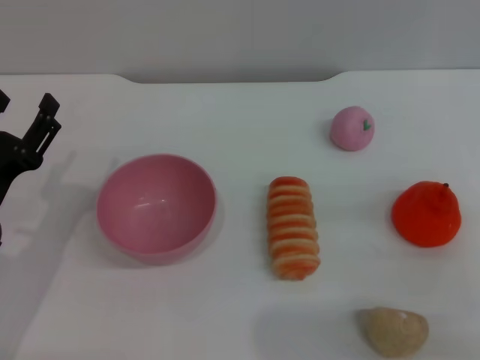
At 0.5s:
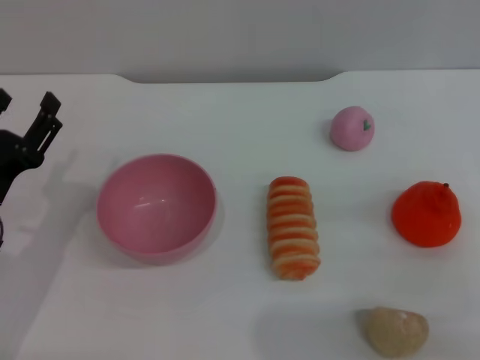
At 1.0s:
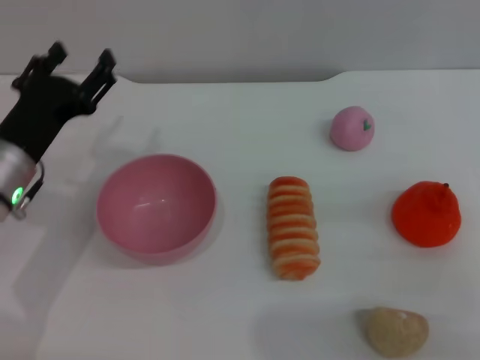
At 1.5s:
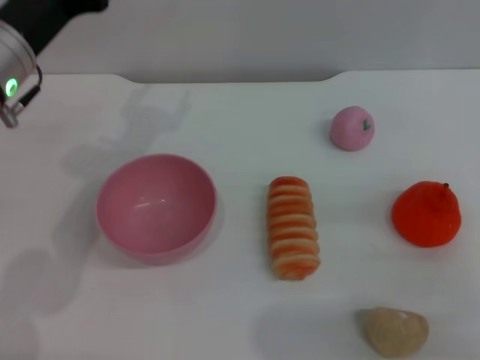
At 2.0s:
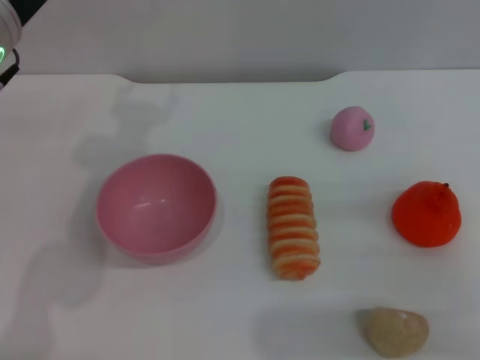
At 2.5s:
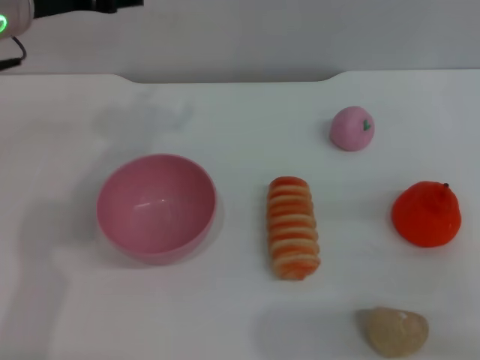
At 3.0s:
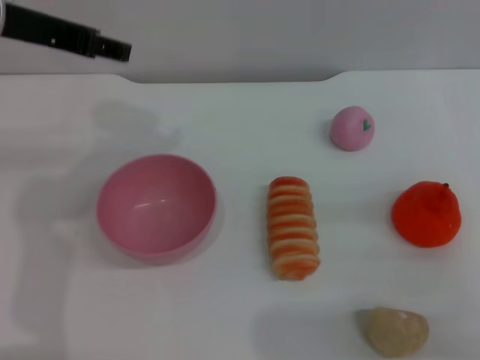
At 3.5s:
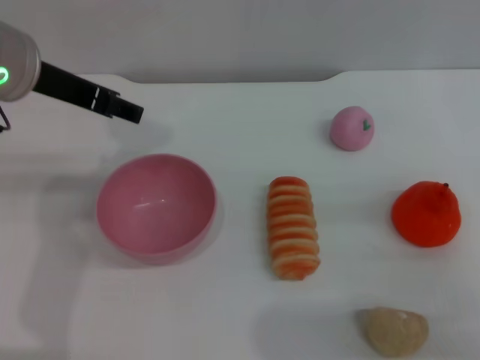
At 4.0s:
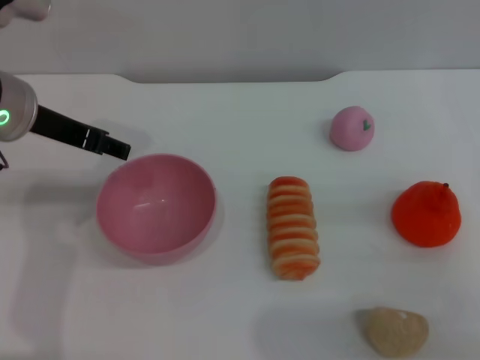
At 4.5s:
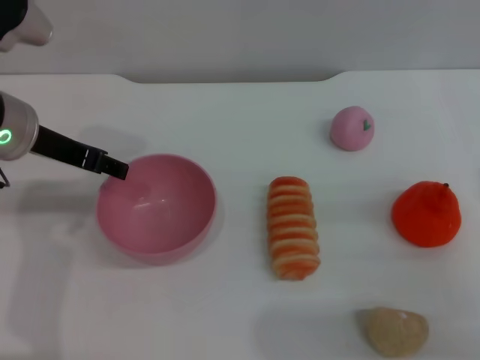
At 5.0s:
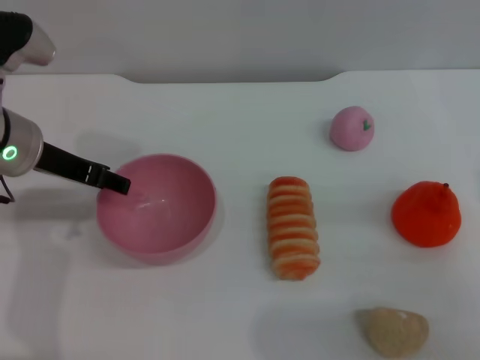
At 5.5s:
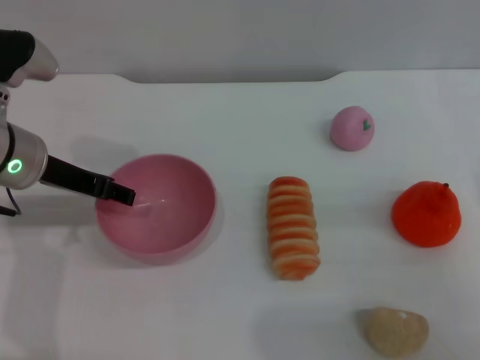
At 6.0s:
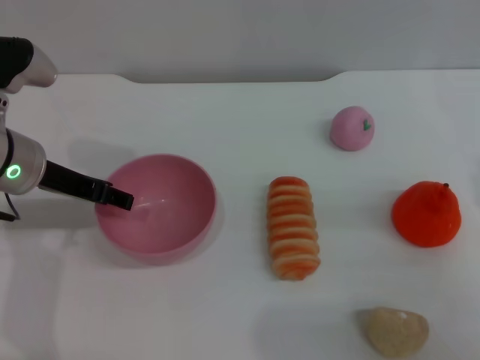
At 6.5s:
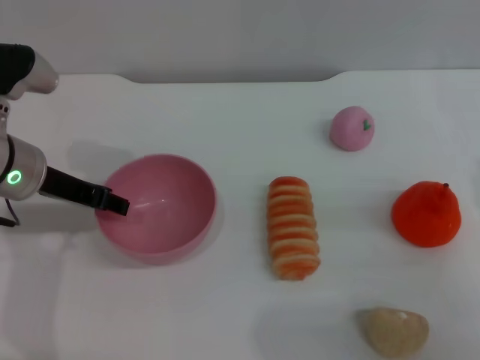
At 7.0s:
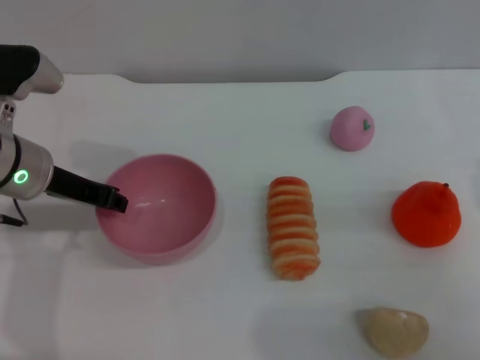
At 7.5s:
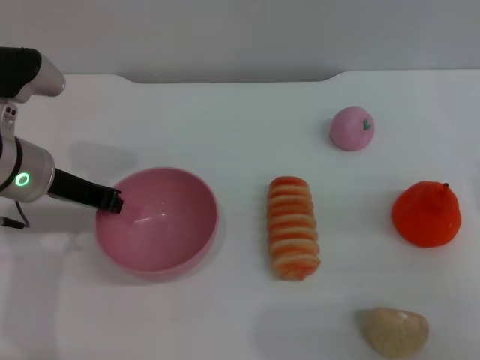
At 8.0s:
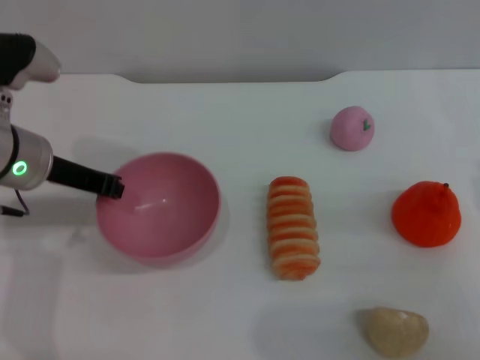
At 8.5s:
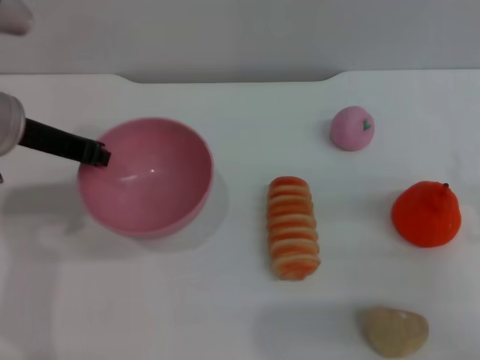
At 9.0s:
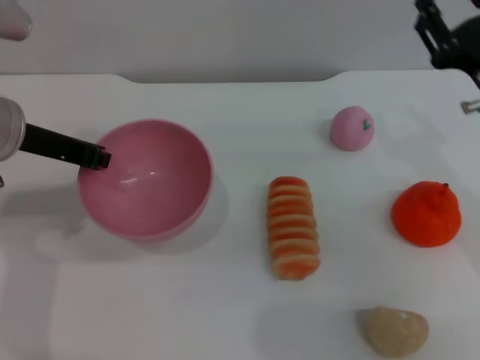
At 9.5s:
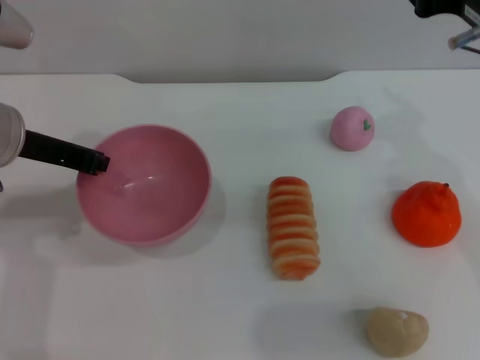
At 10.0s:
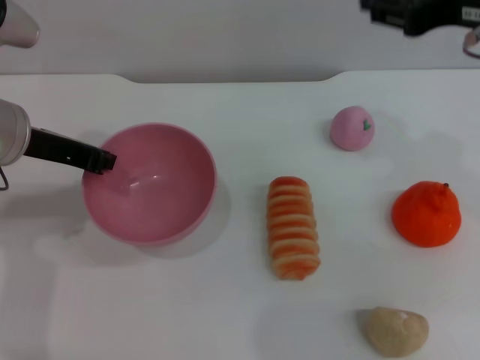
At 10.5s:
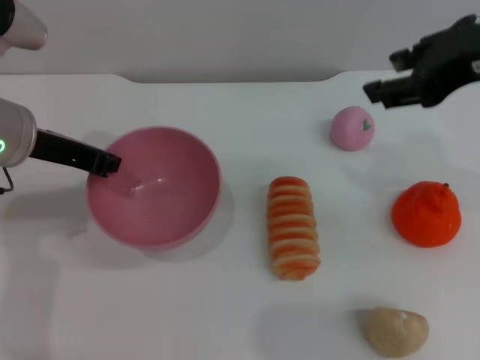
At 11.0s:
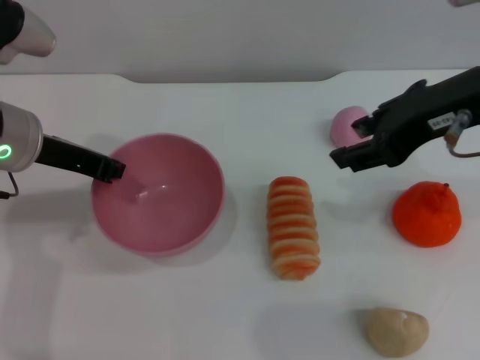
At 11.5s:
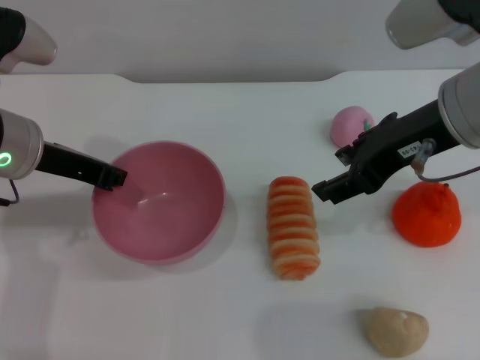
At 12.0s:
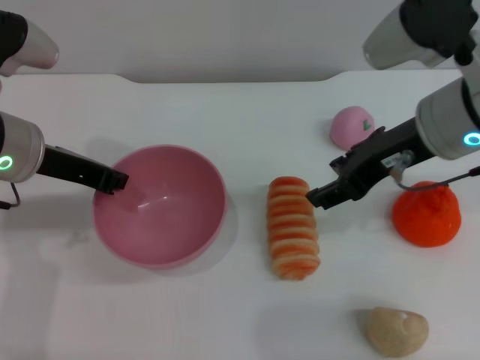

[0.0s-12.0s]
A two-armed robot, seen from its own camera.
Task of the whole recording: put the bread into the pink bowl and pour it out repeatedly.
Step, 0.0s to 8.5s: Pick up the bowl with the left gripper.
0.0s to 2.0s: The left gripper travels upward, forward and to the right by some 20 cm.
4.0s to 6.0s: The left gripper moves downward, roughly 5 cm.
6.0s to 8.0s: The left gripper closes.
8.0s to 10.0s: The right gripper moves upward, forward and to the left, about 25 cm.
10.0s to 12.0s: The right gripper is displaced downward by approximately 5 cm.

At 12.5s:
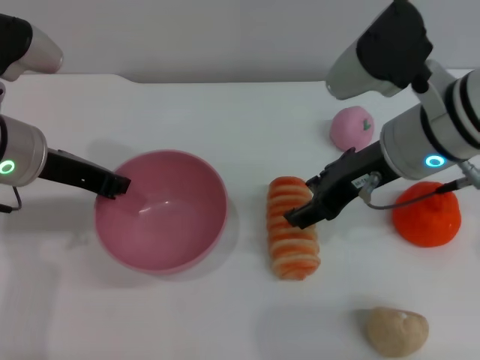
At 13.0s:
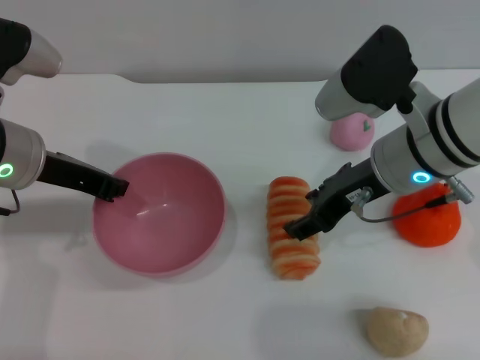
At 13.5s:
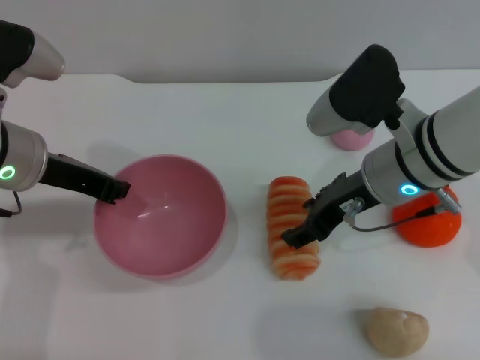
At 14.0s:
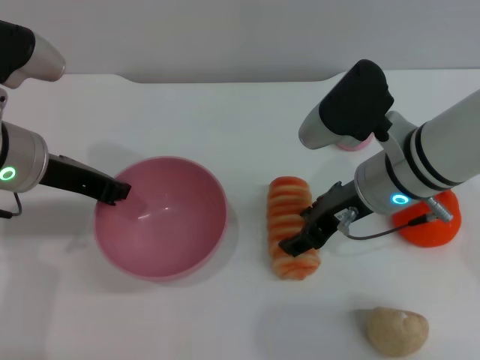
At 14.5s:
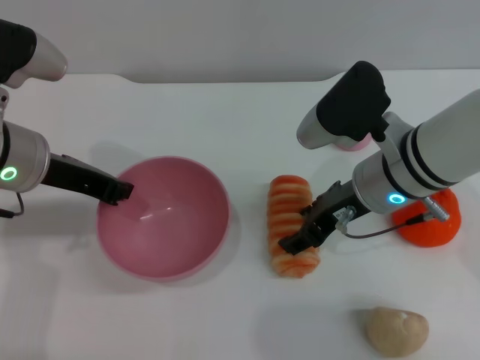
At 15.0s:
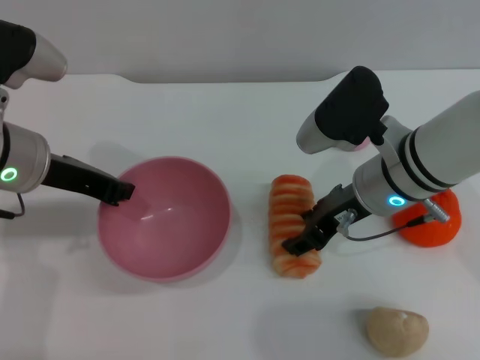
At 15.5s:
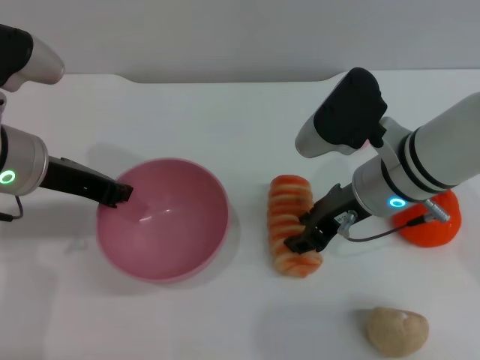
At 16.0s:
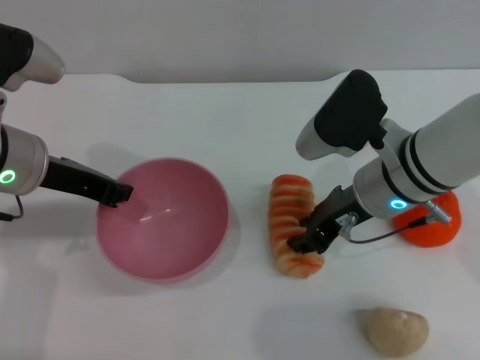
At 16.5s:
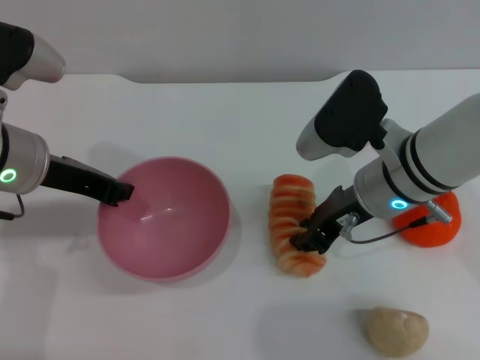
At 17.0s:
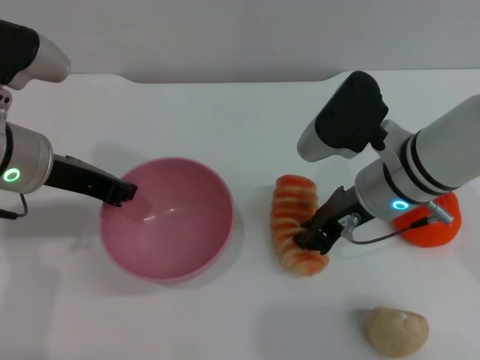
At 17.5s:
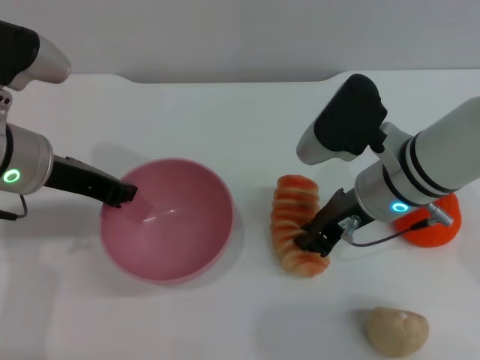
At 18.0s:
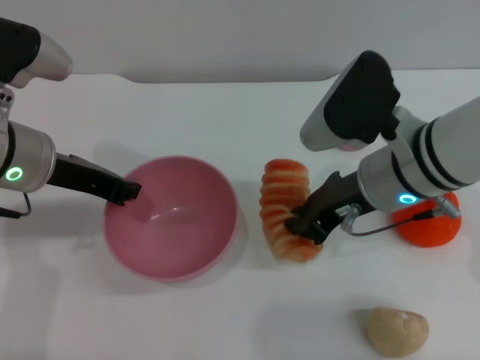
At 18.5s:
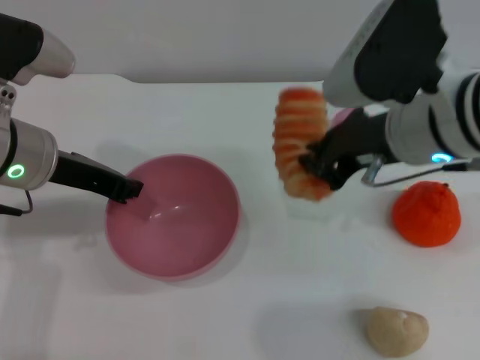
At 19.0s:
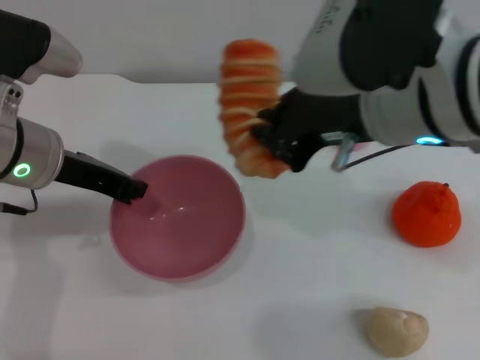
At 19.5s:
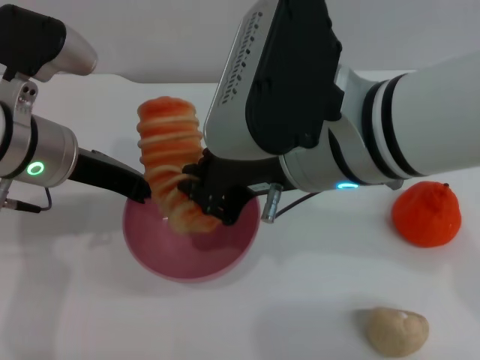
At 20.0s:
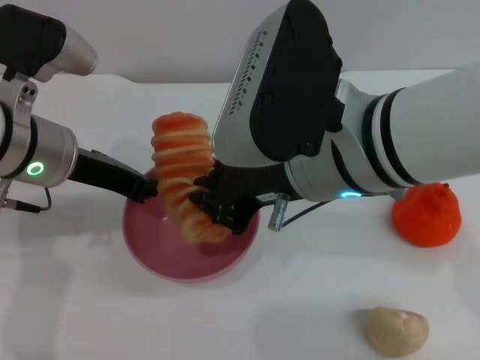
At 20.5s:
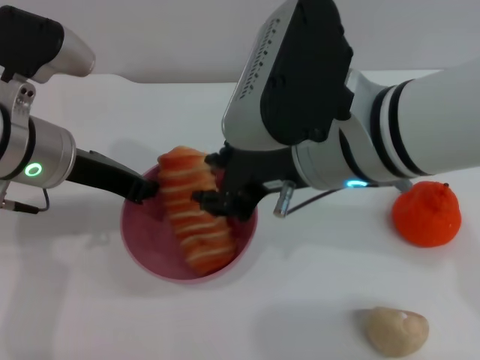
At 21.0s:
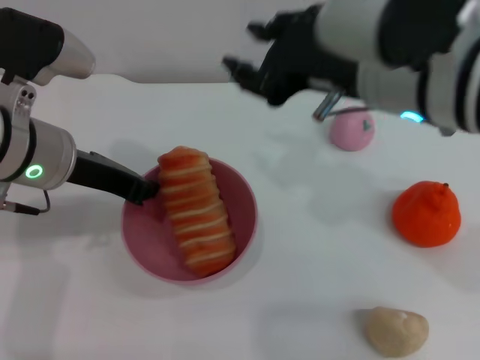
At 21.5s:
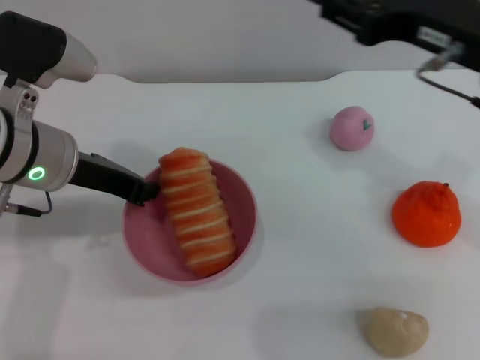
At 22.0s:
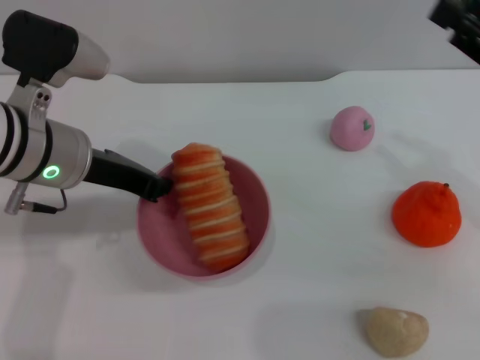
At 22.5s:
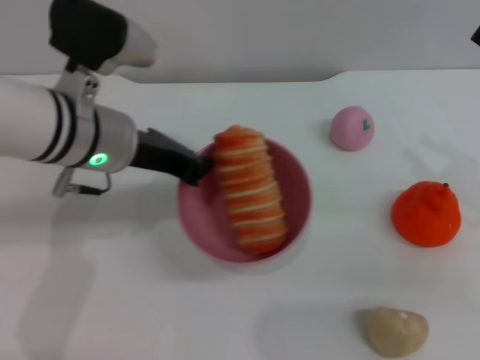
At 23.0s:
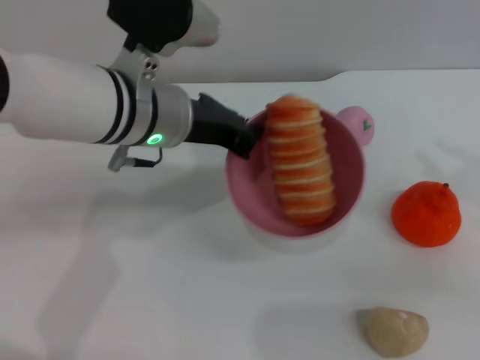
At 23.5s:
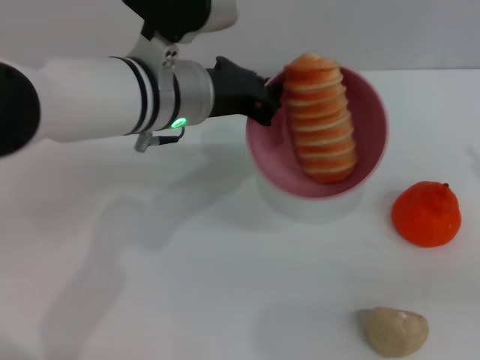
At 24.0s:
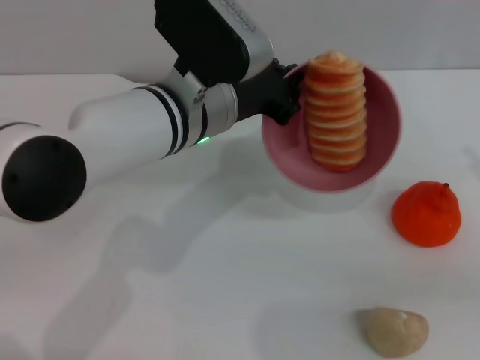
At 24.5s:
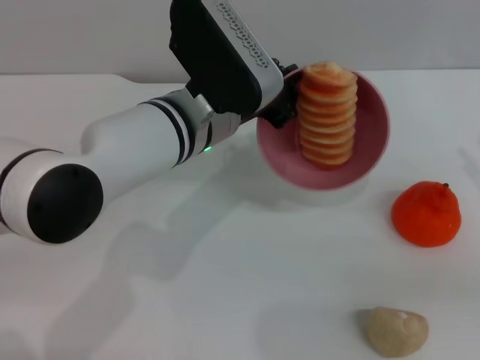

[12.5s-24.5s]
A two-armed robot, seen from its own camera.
Task of the whole recording: put the bread into the pink bowl and pour it out repeatedly.
Step, 12.5s to 18.0s: Pick up the bread with the right gripper.
Step, 18.5s to 20.5s: Place the bread into the bowl.
12.5s to 14.5s: The right gripper heads downward, covering some 5 cm.
14.5s to 16.5s: The right gripper closes its fingers.
16.5s to 18.5s: The right gripper goes roughly 10 cm upward.
18.5s to 20.5s: The right gripper travels to the left by approximately 5 cm, and opens its fingers.
20.5s to 22.5s: The left gripper goes about 5 cm to the right. The right gripper goes some 25 cm to the right.
22.5s to 24.5s: The left gripper heads to the right, covering roughly 10 cm. The right gripper moves approximately 5 cm.

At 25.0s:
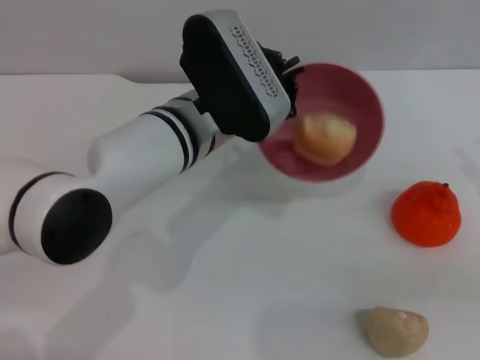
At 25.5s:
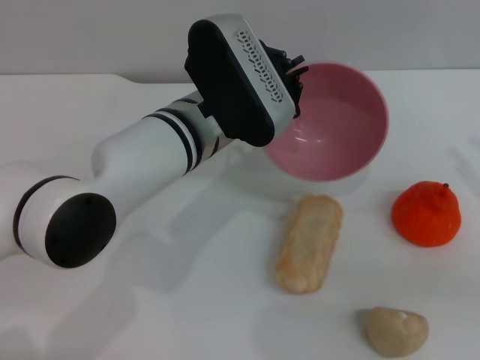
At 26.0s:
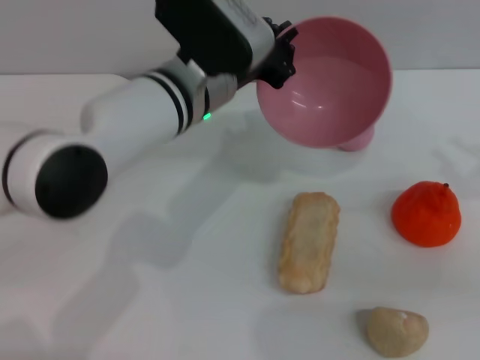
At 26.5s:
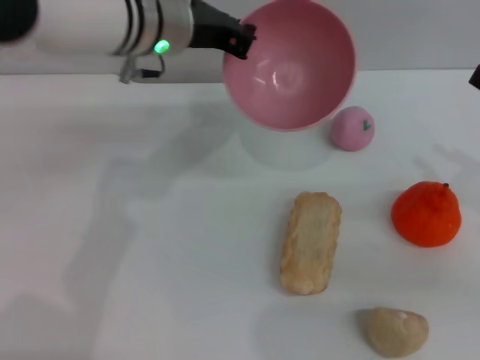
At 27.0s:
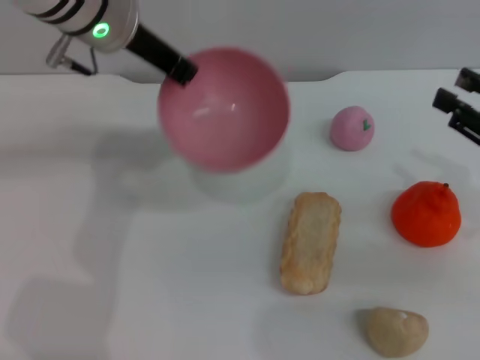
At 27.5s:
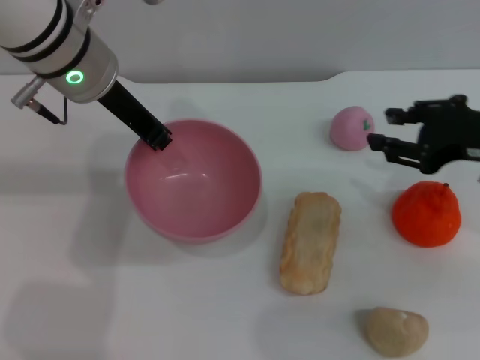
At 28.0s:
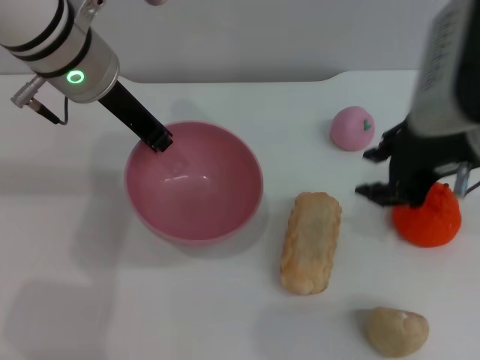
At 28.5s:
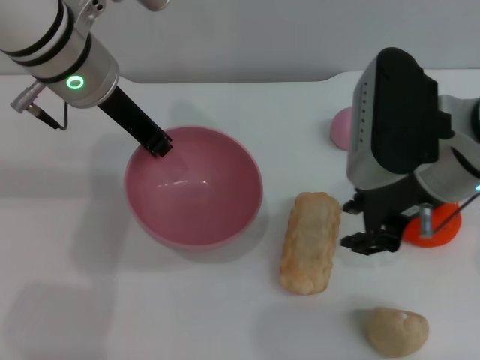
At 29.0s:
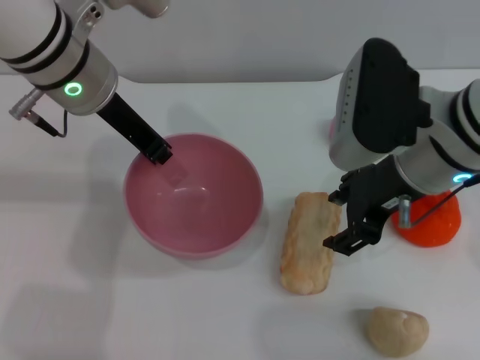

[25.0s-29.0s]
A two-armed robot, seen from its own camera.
Task of the whole recording: put the bread into the pink bowl and pour it out repeatedly.
25.0s to 27.0s: The left gripper shifts roughly 15 cm upward, to the left and forward. Meanwhile the right gripper changes place by some 5 cm.
27.0s to 29.0s: The right gripper heads to the left, covering about 15 cm.
